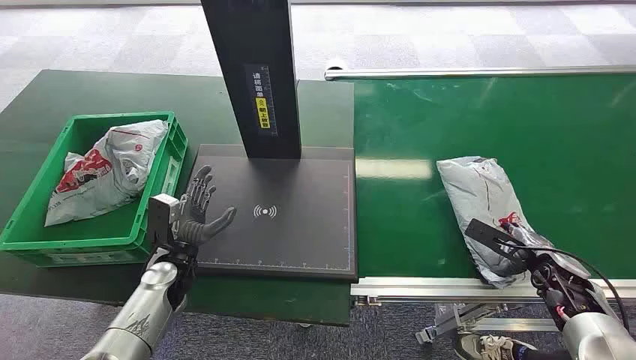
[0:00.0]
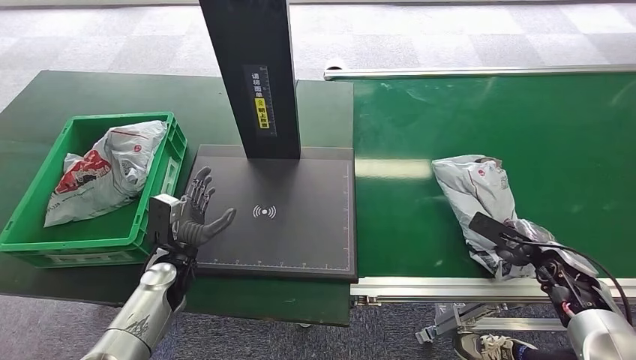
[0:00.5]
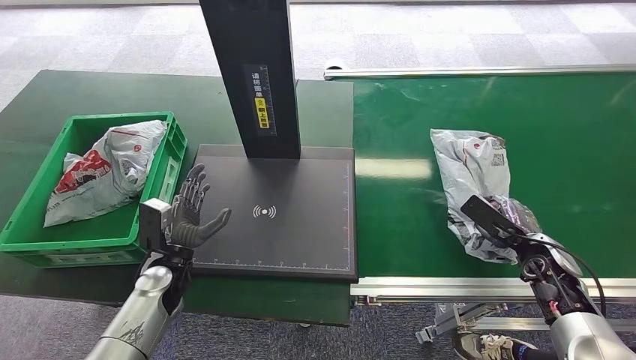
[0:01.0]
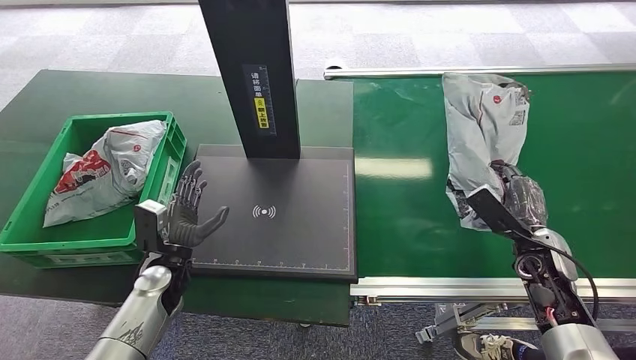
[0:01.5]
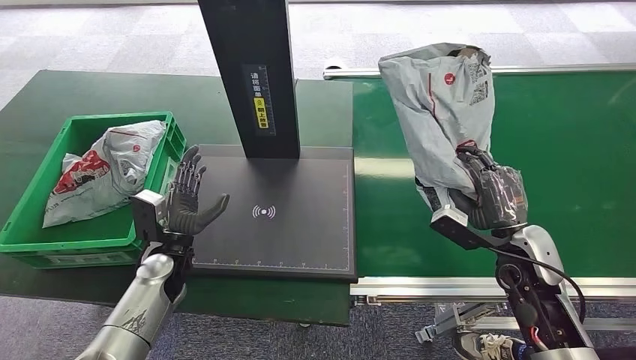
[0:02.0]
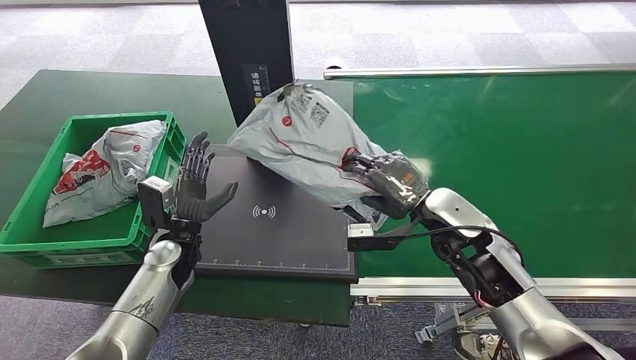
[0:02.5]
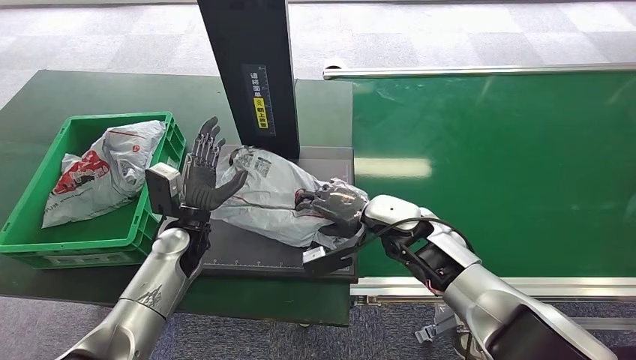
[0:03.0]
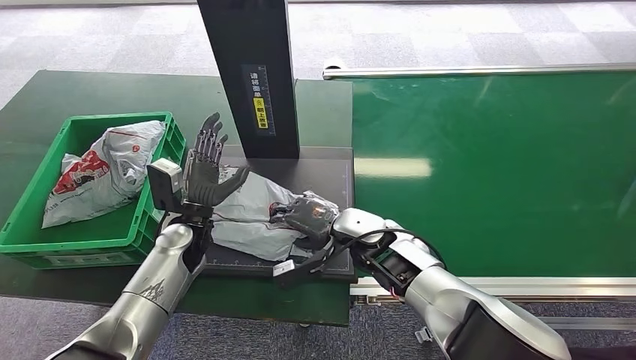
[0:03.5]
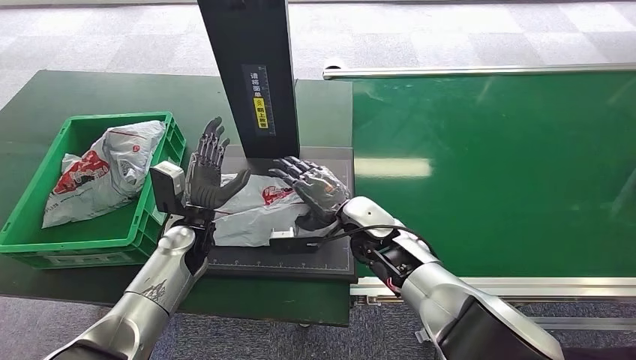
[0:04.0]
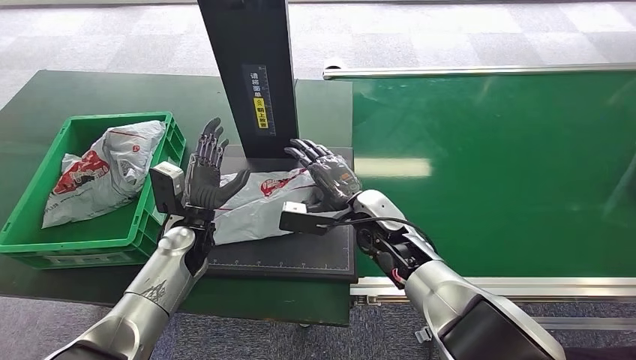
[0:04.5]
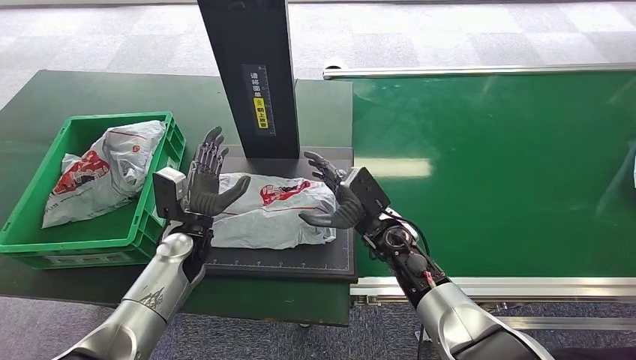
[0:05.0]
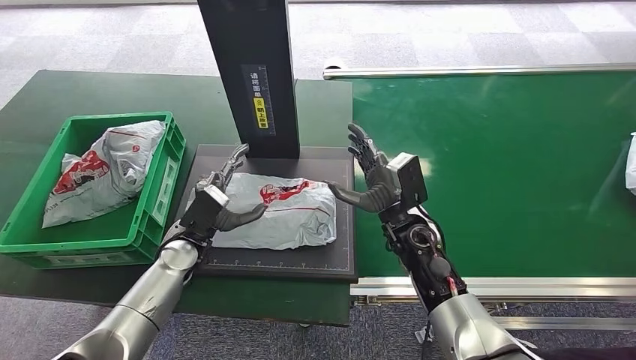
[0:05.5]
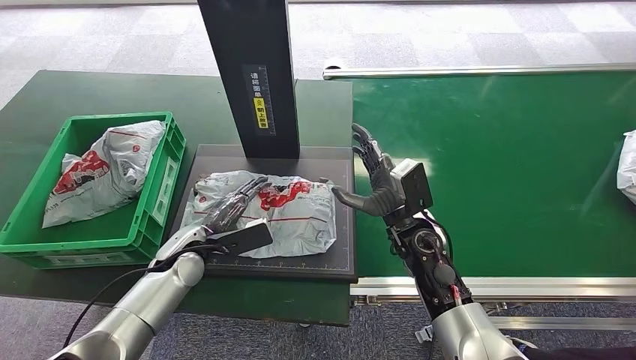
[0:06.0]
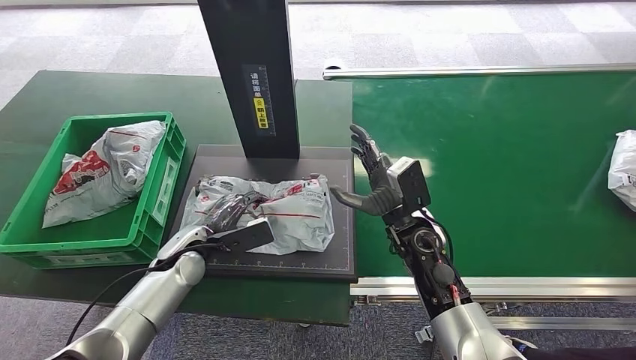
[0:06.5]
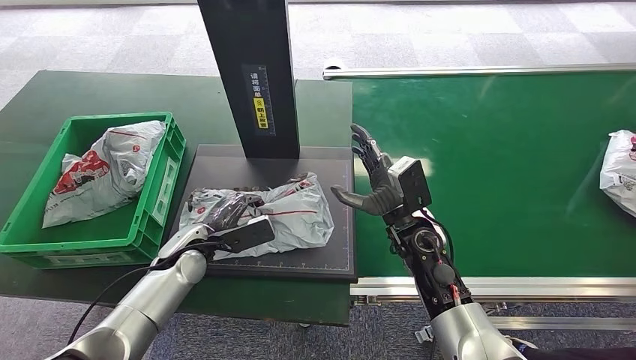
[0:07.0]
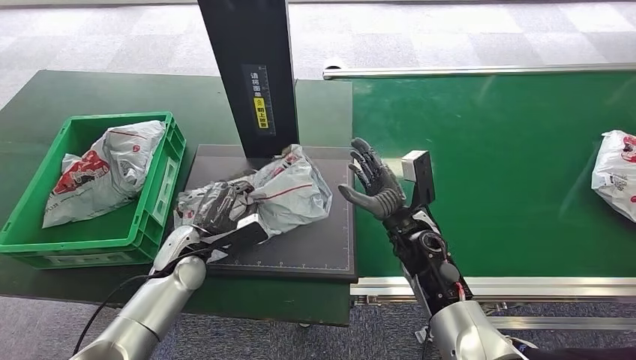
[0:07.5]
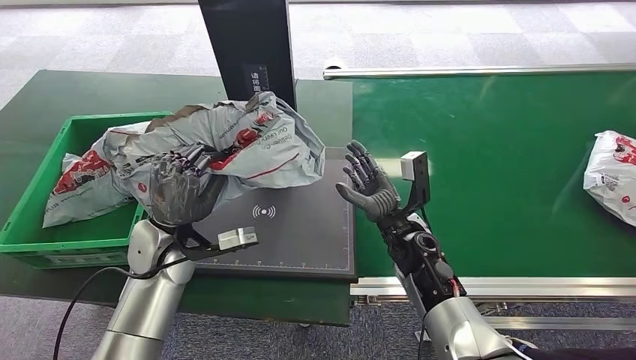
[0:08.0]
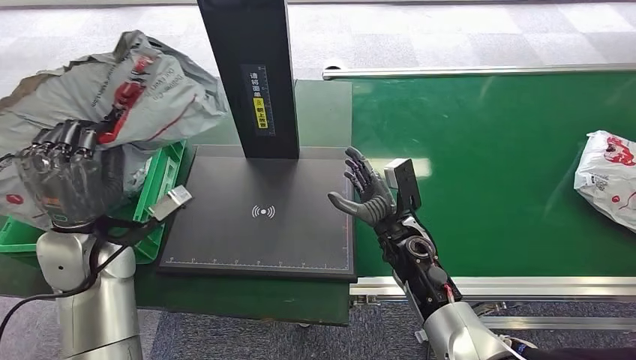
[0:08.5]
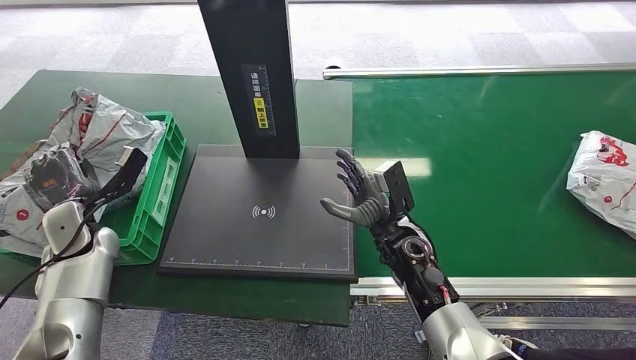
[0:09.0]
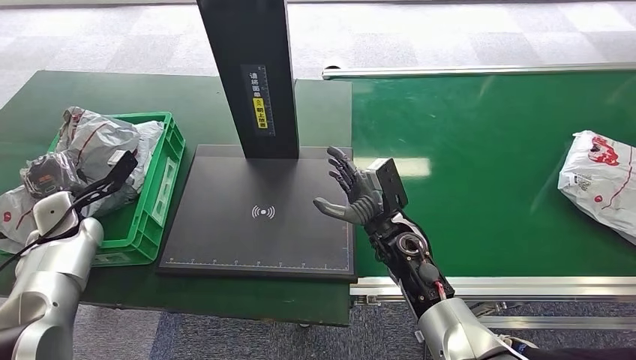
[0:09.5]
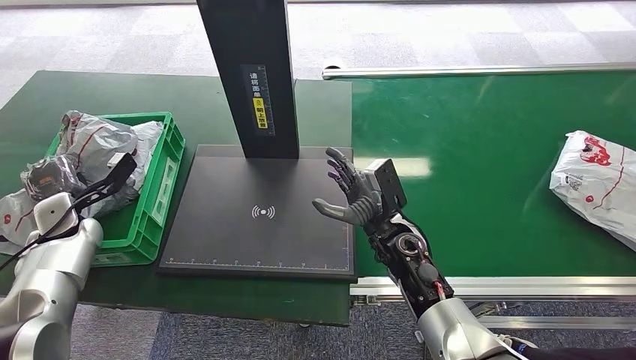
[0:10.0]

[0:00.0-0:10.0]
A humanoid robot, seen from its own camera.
Step, 0:00.0 to 0:02.0: Pick up the package from the conveyor belt.
Step, 0:02.5 to 0:04.5: Place the package onto the inbound machine.
Step, 0:05.0 to 0:08.0: Pick up the package from the inbound machine.
Step, 0:09.0 to 0:10.0: Place the package into the parcel locker.
0:04.0 to 0:06.0: The right hand is displaced to the right by about 5 cm.
0:06.0 to 0:08.0: The left hand moves upward, some 10 cm.
